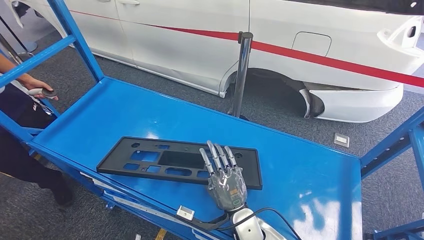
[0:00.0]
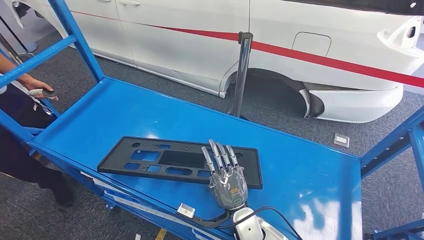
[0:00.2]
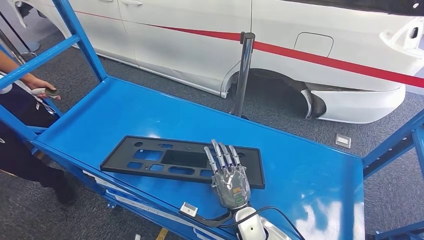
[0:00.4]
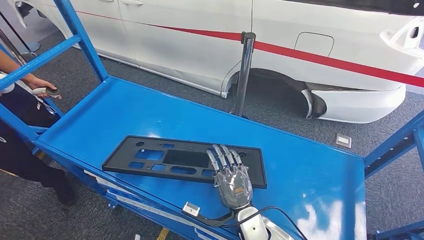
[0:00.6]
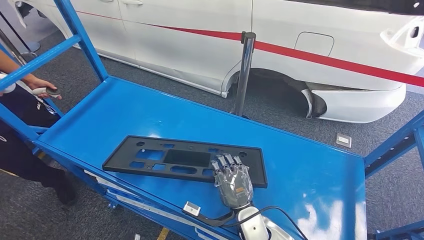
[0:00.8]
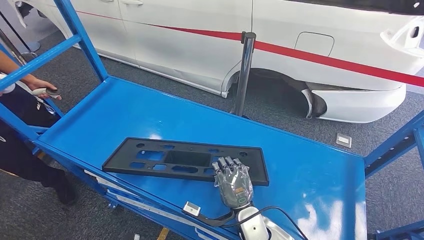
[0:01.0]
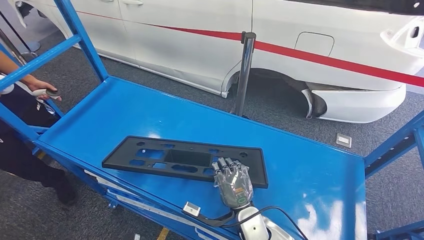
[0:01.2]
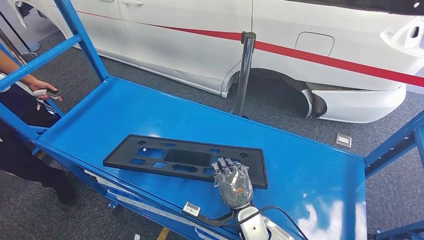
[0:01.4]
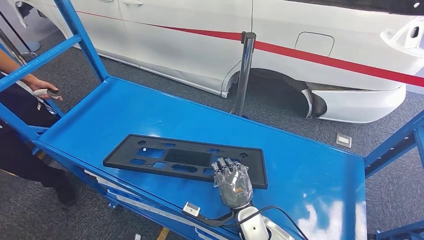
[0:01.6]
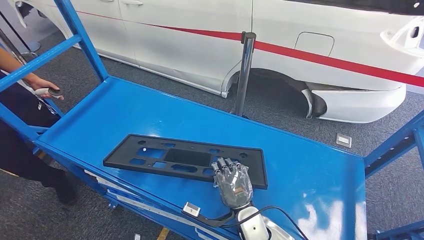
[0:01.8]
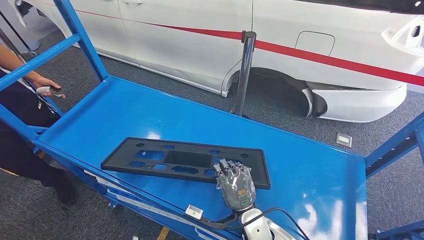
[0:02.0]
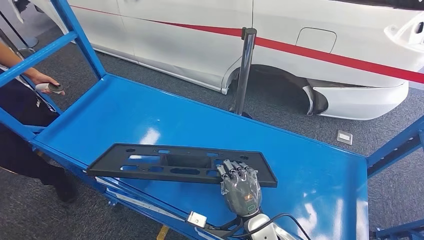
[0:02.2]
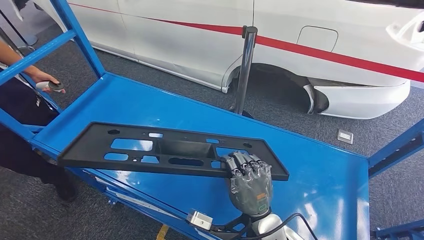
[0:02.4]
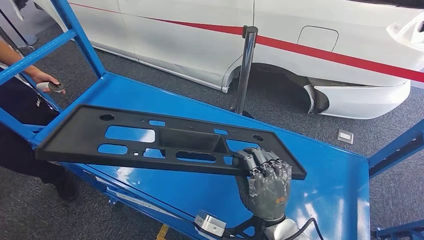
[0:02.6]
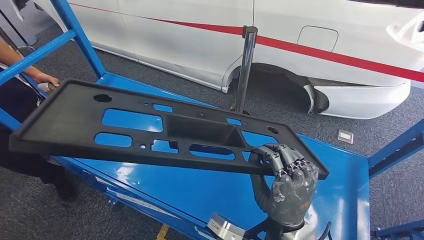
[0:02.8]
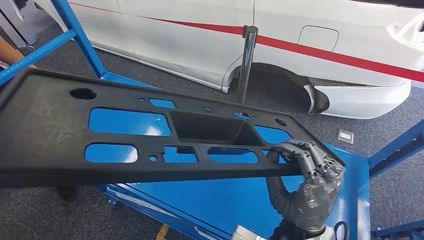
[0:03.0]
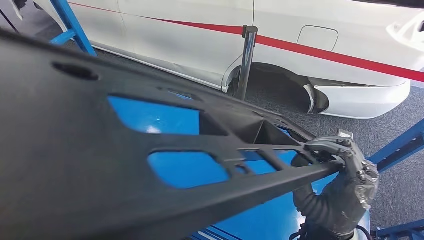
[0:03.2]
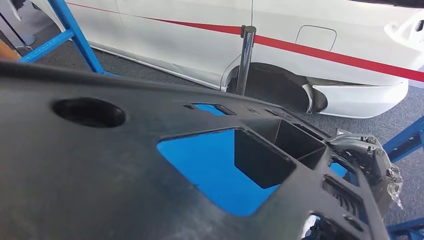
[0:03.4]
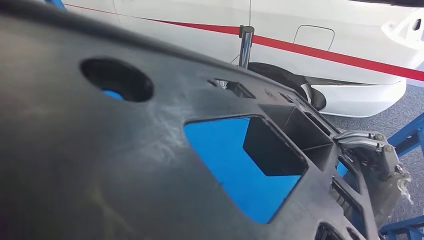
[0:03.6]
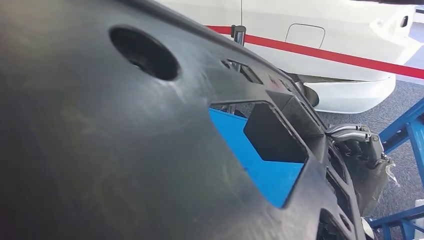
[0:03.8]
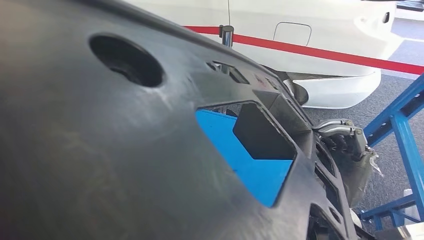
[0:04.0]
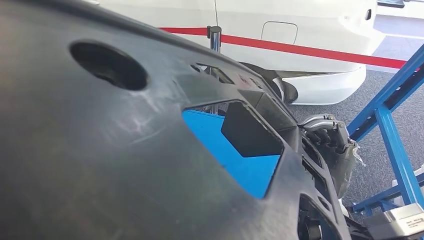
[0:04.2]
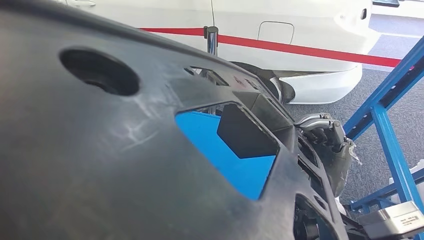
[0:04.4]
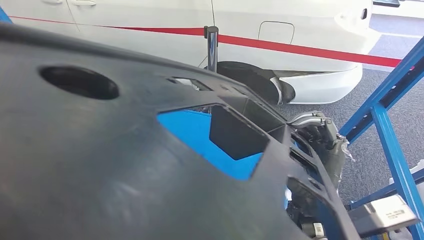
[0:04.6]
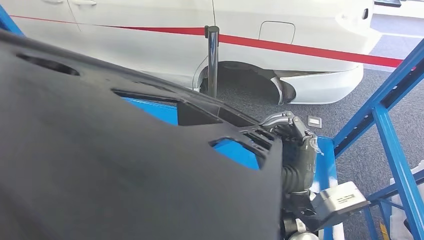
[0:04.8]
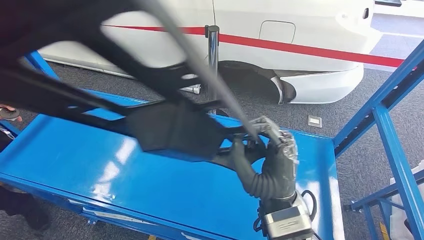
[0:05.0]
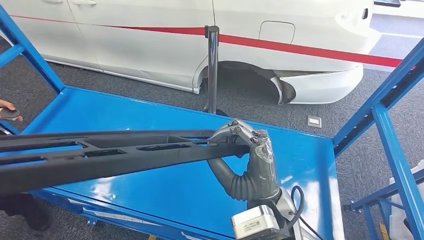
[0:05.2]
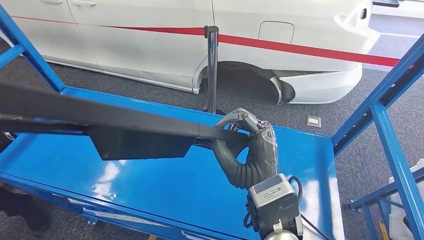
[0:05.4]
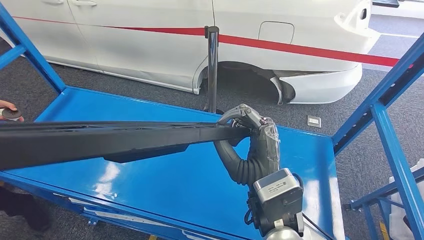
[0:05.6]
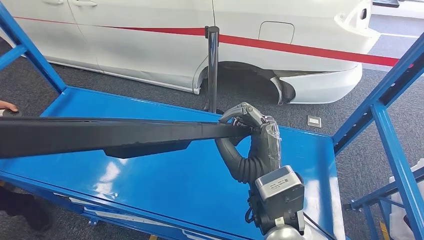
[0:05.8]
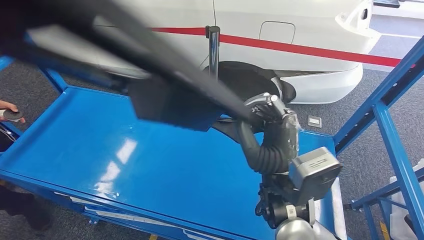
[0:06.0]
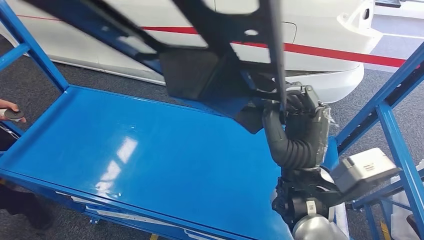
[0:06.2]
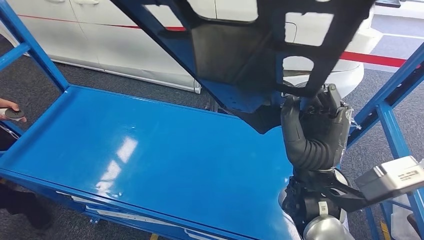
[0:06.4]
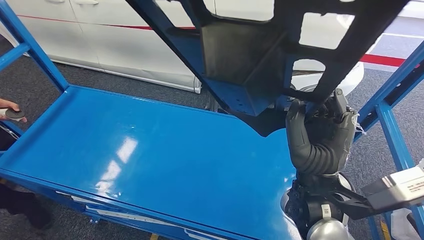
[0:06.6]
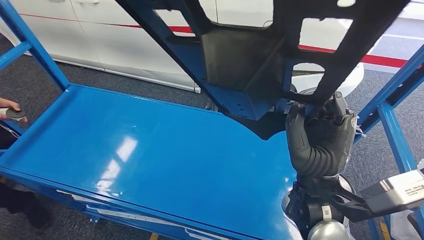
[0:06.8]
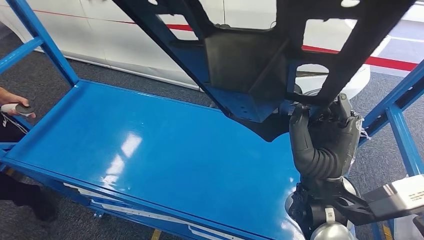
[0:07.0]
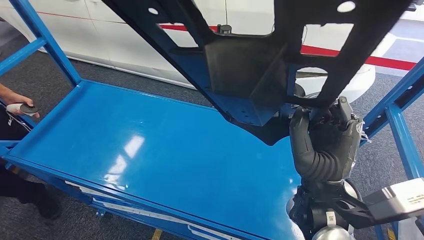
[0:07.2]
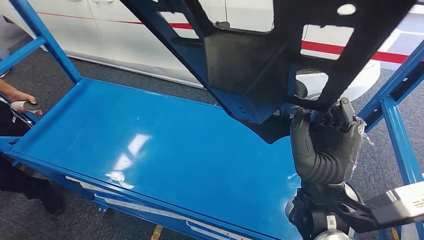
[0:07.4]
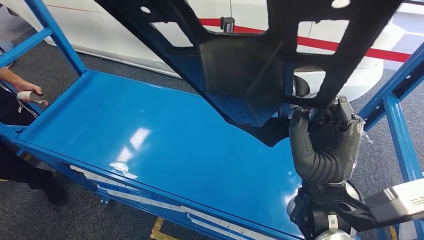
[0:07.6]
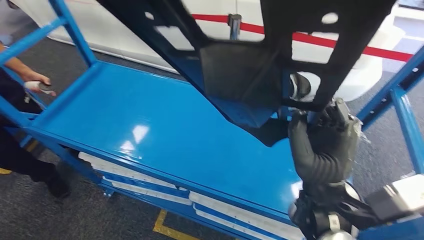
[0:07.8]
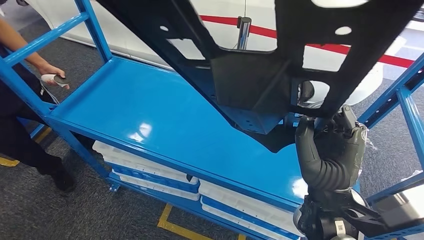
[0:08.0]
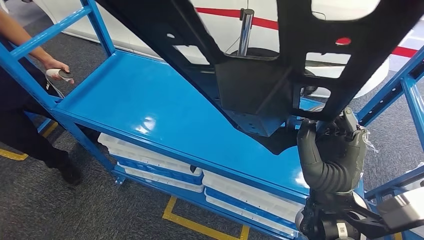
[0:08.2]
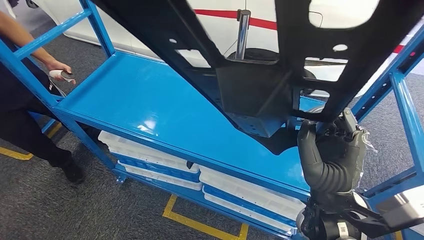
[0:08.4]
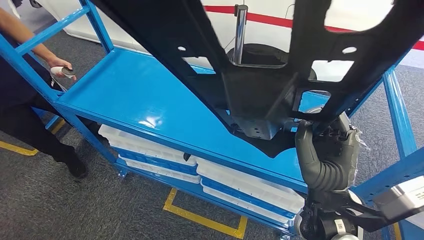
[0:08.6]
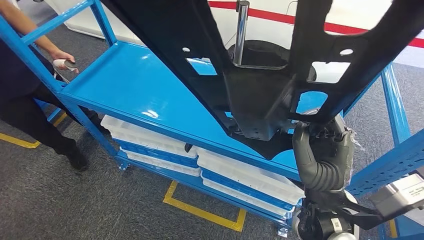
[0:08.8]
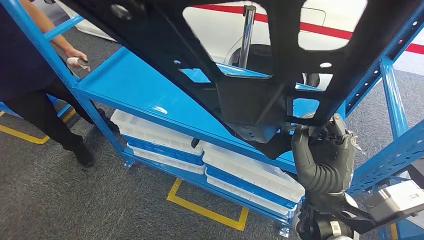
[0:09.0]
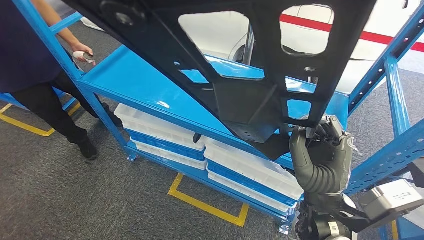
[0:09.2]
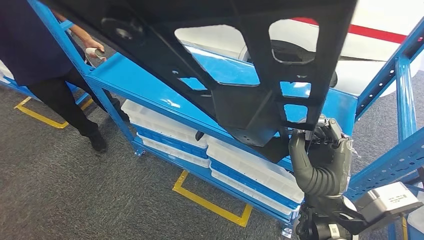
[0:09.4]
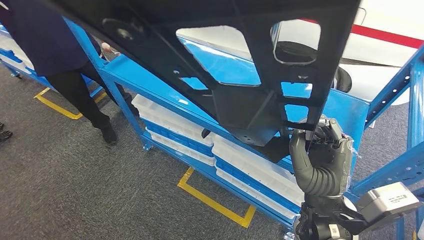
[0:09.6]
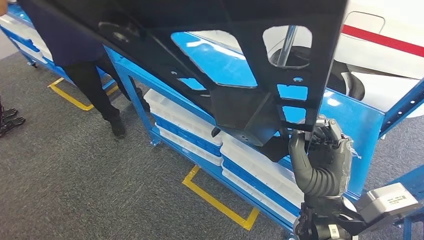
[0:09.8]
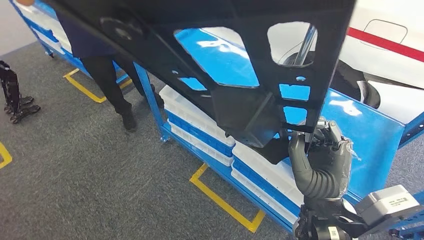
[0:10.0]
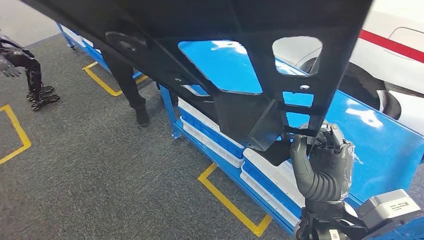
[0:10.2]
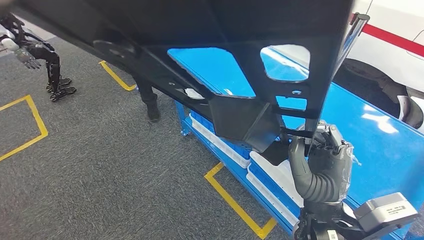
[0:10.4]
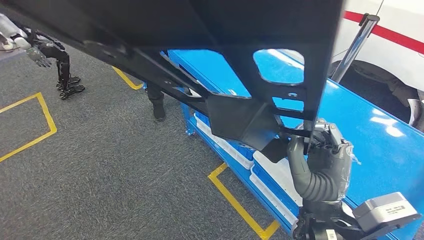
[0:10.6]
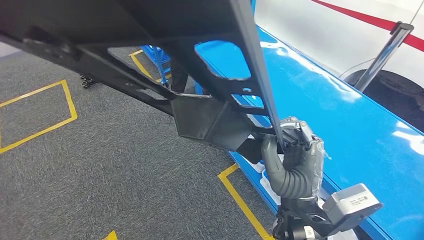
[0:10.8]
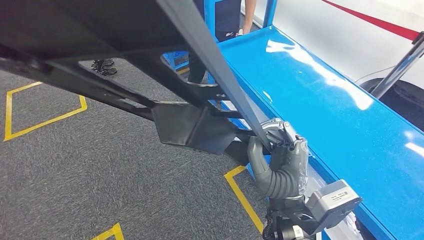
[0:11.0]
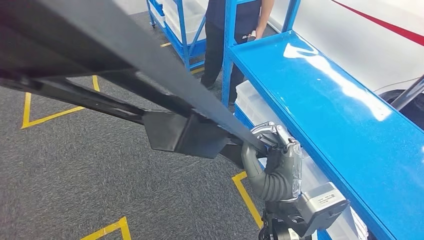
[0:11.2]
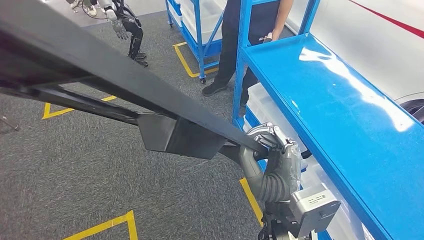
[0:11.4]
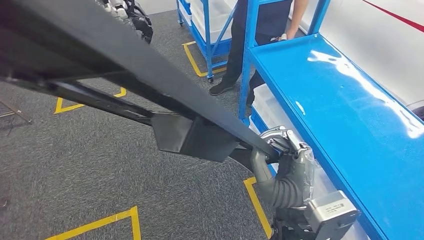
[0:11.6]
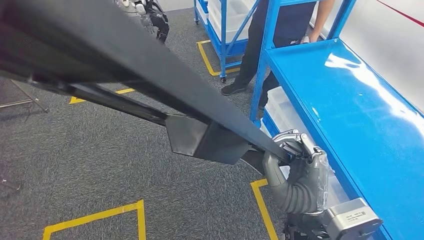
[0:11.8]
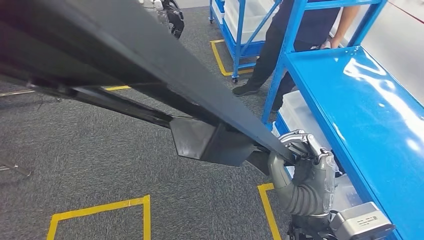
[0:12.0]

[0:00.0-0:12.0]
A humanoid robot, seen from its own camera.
Step, 0:00.0 to 0:02.6: Pick up the large parts from the shelf.
0:00.0 to 0:01.6: The hands move only a little.

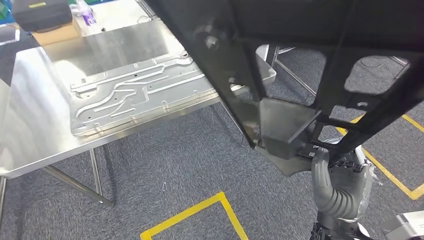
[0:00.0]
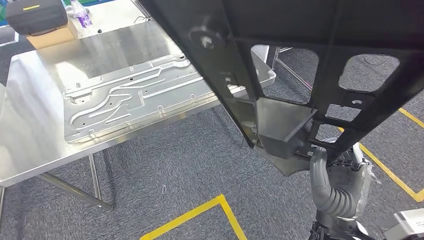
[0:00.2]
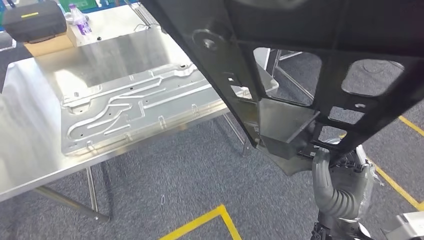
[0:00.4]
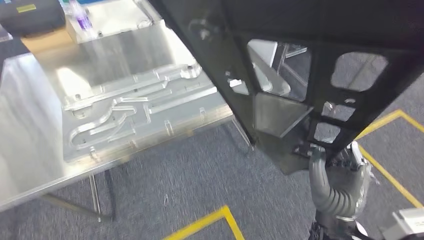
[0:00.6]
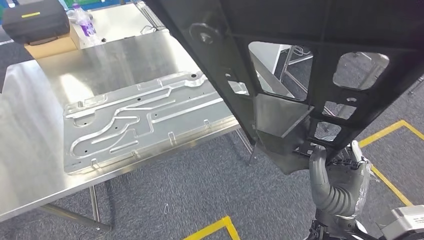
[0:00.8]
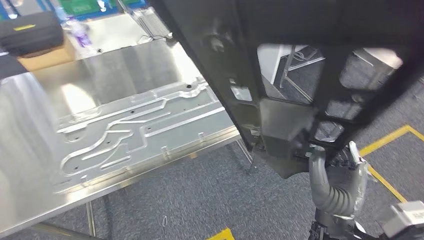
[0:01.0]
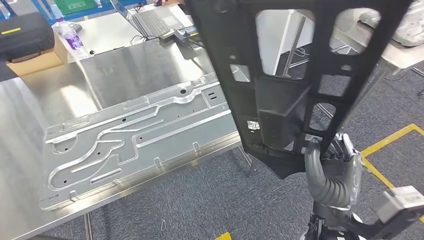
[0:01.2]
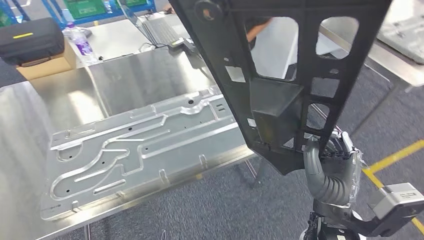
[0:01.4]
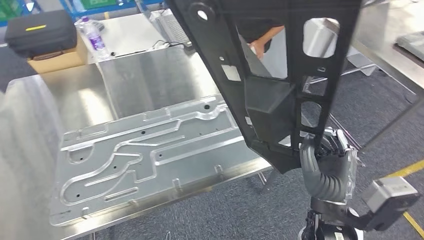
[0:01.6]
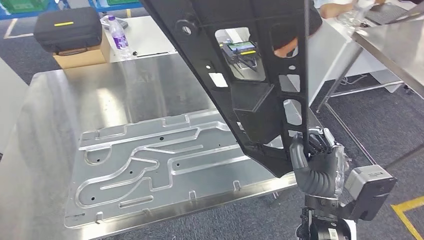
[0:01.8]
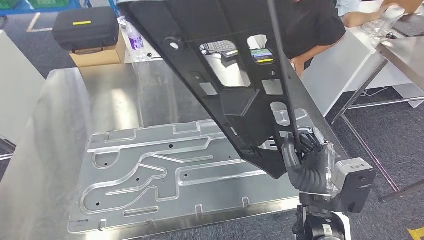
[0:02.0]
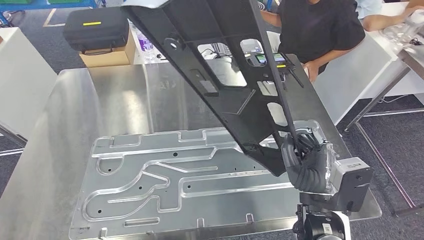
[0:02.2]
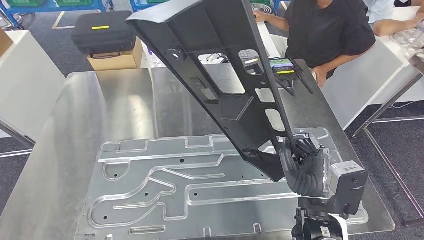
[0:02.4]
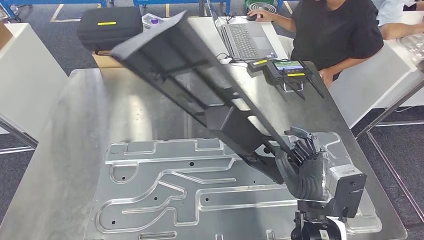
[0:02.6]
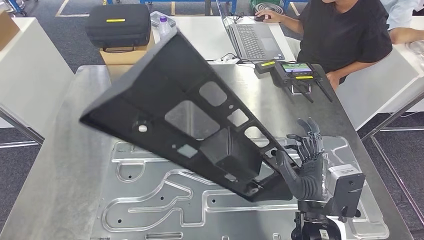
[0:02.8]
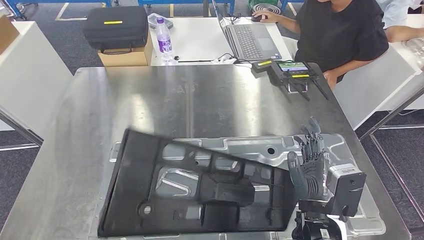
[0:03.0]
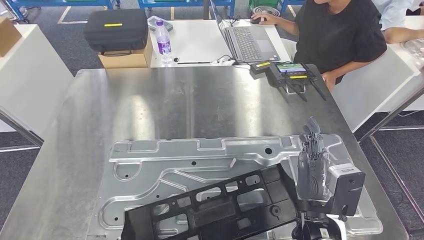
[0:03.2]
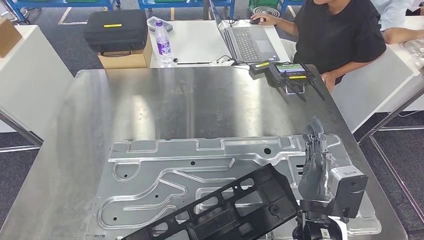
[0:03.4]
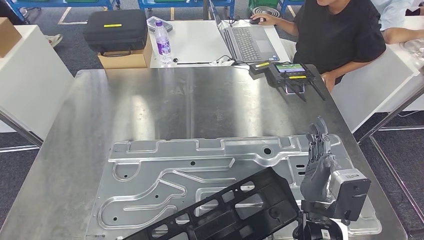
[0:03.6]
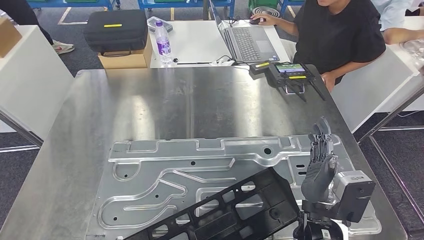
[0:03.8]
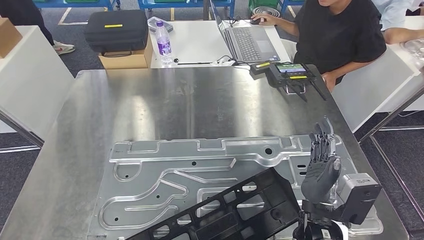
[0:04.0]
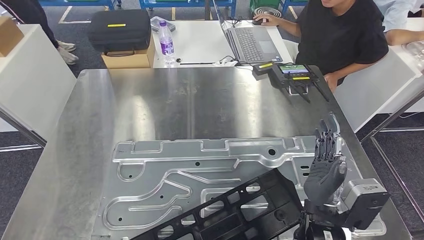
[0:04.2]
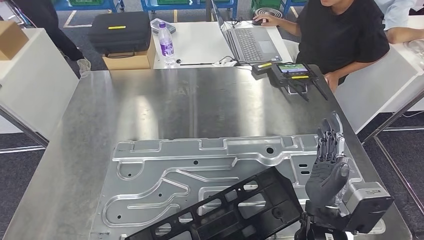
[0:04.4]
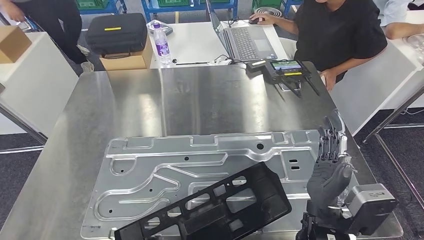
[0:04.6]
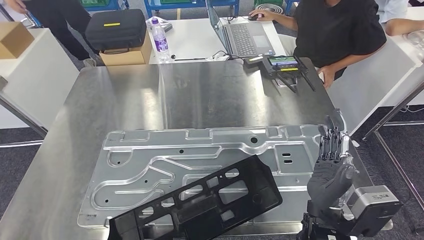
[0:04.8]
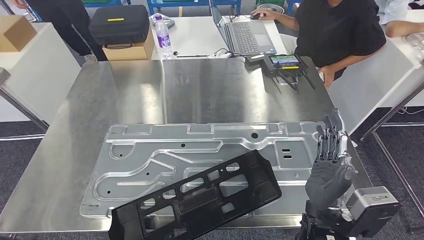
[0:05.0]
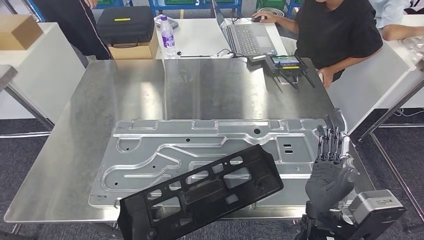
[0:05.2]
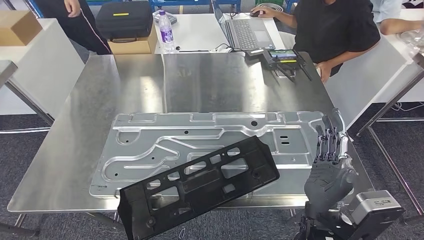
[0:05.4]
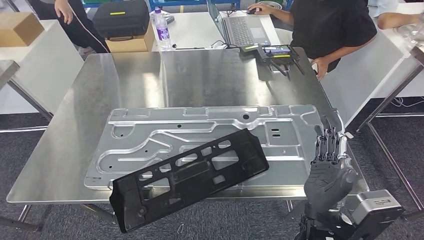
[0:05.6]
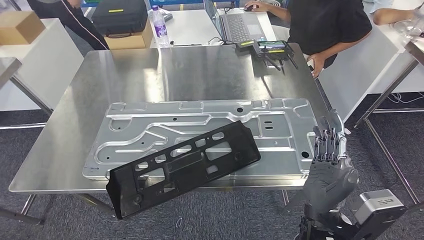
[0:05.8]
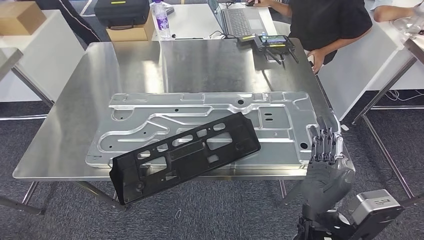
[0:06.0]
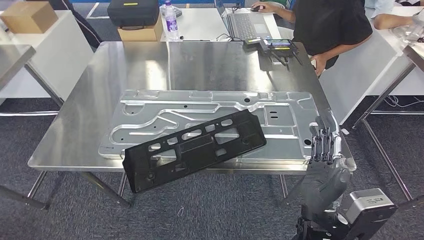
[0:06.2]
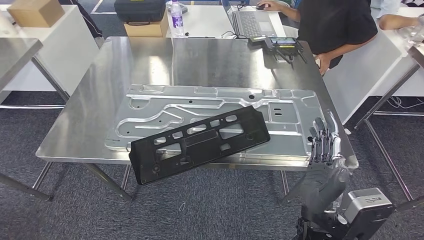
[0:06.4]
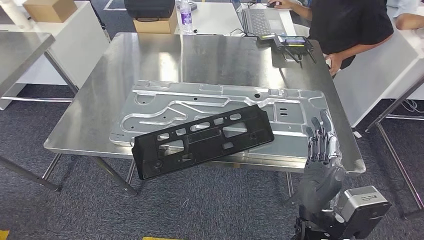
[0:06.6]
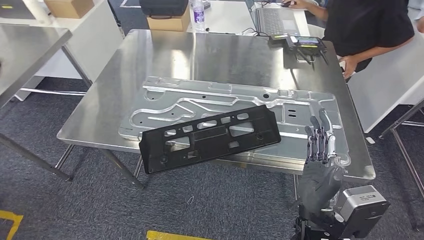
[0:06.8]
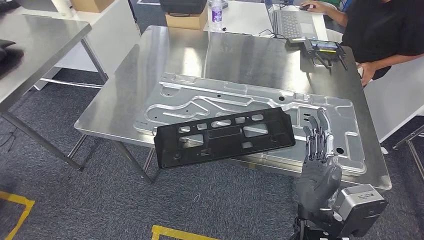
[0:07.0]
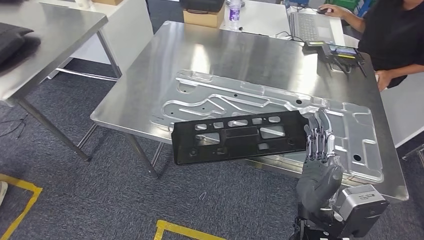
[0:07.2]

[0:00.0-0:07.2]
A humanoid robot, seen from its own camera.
Step, 0:02.6 to 0:04.4: Insert the large parts into the corresponding slots on the workbench.
